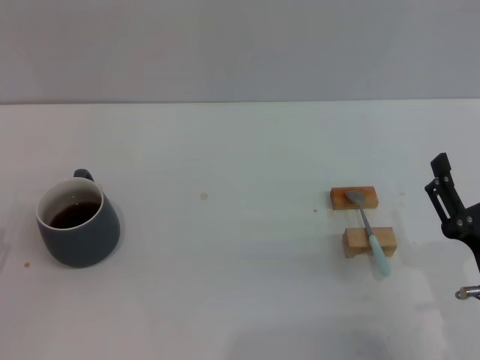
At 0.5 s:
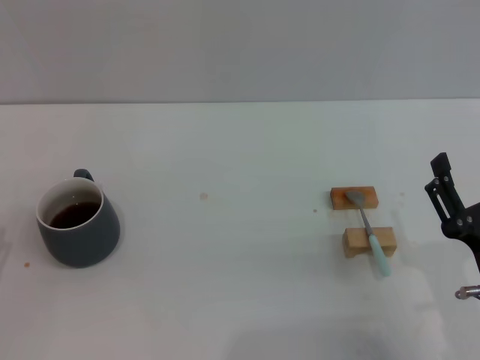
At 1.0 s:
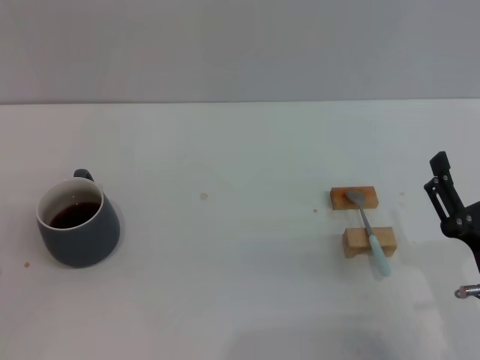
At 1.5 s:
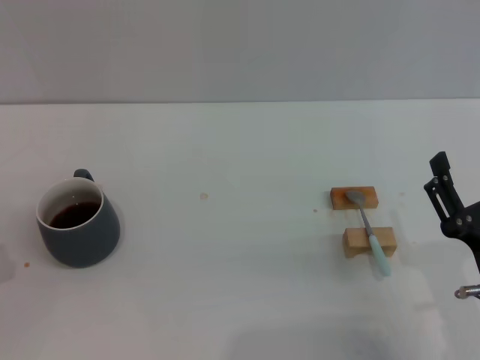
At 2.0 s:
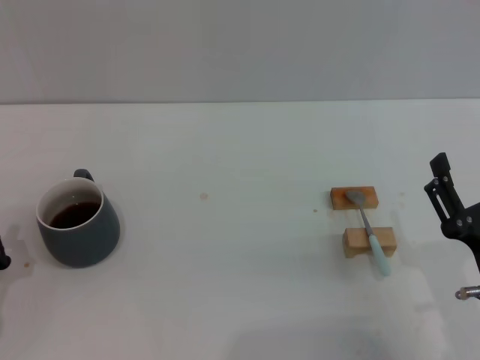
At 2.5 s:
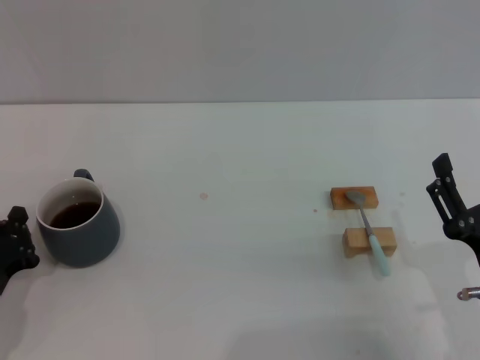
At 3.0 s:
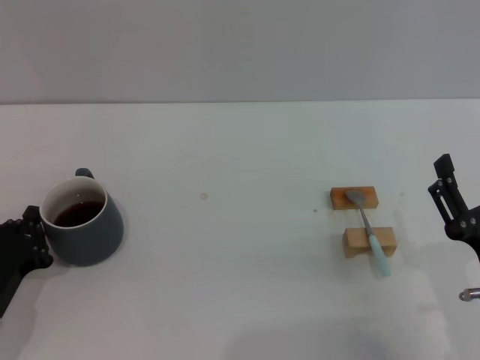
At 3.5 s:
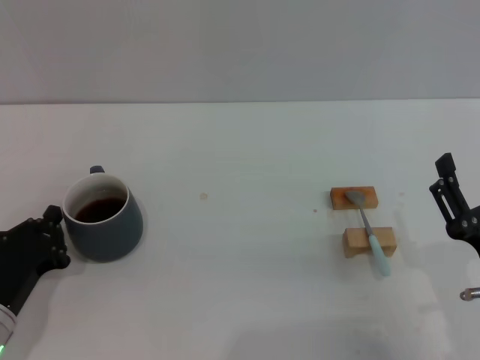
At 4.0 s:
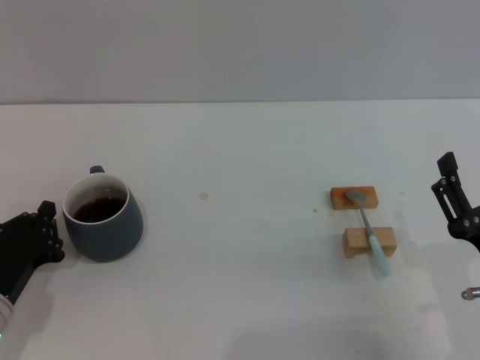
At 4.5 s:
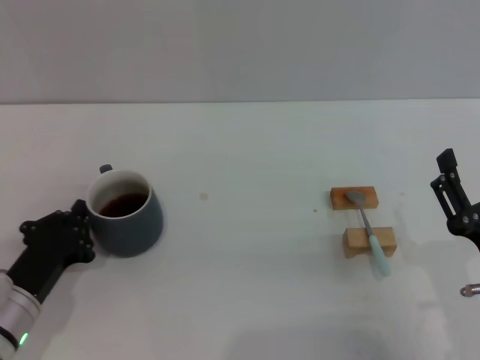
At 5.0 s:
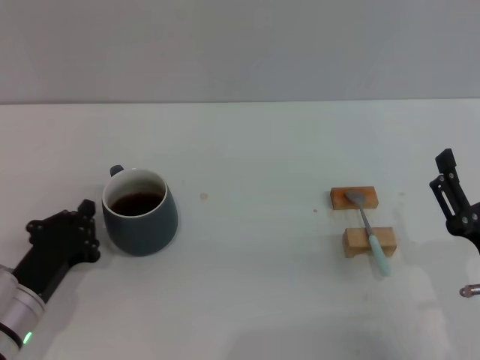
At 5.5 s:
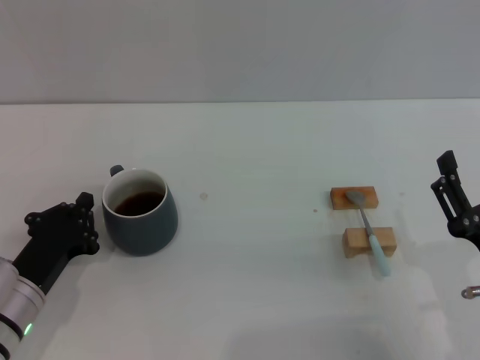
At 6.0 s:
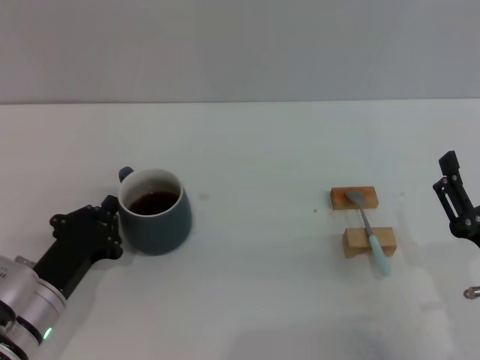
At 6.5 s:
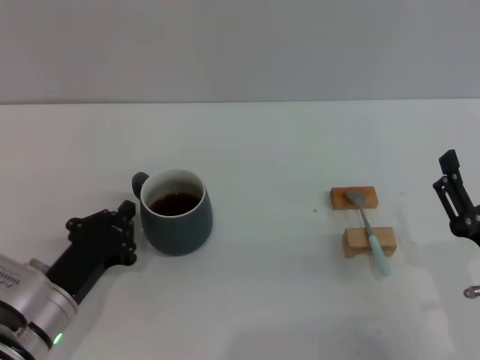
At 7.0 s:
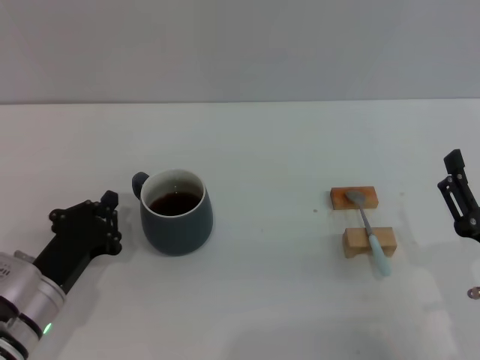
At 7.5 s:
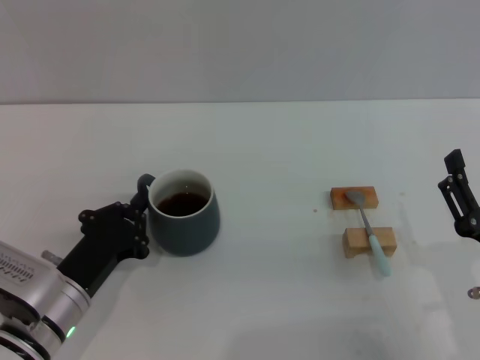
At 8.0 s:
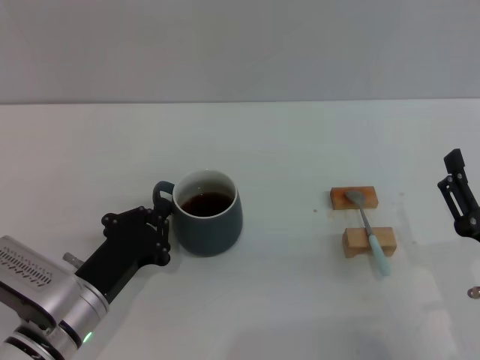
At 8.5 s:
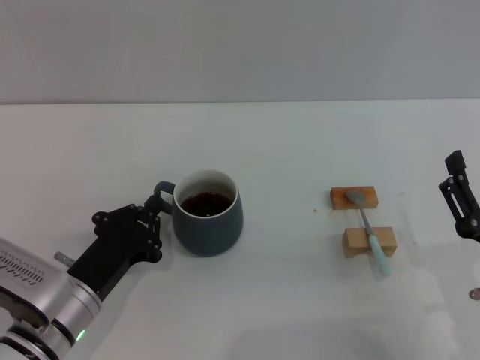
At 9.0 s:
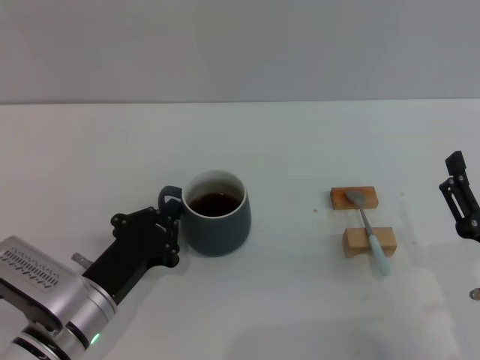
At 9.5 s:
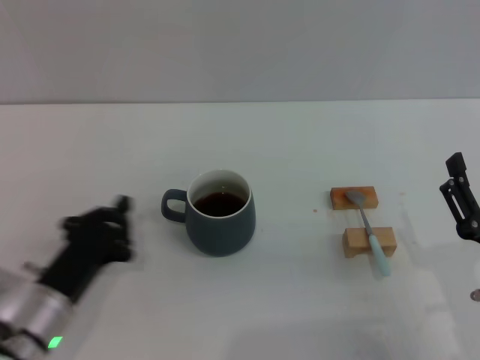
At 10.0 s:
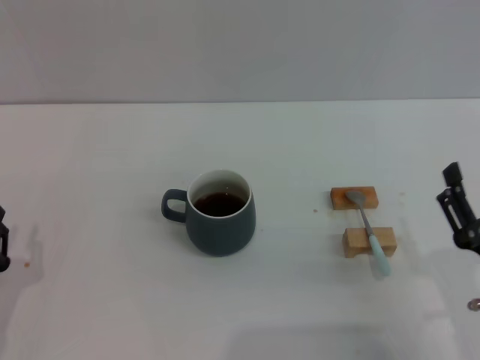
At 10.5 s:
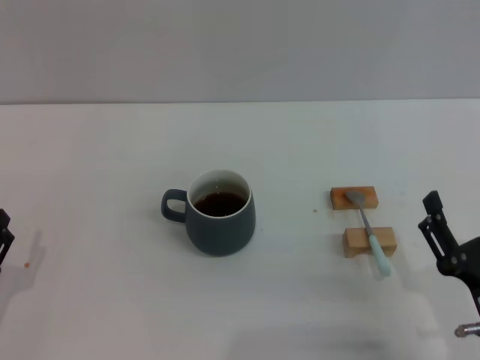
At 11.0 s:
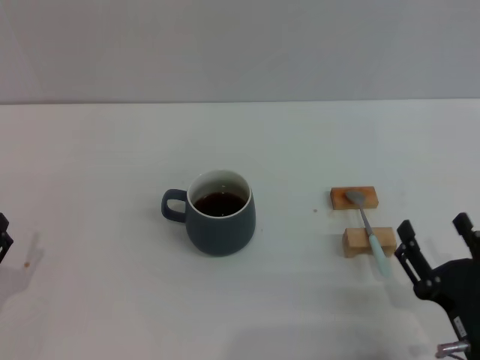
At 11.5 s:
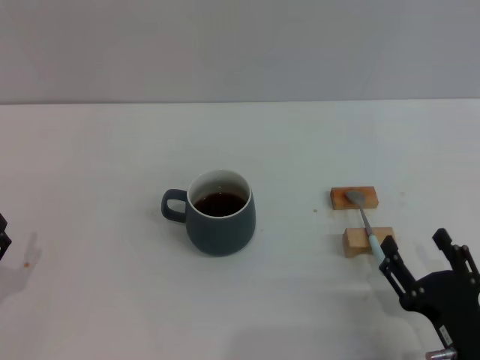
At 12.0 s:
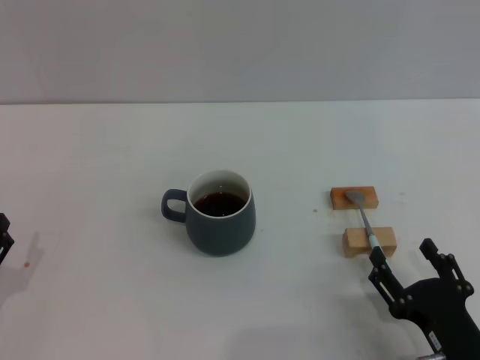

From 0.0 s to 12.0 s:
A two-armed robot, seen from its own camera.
Task of the whole recording: Move the grey cup to the center, lift the blue spoon, stir it three times in the cup, and put the spoon into the cup.
Step, from 0.0 s to 9.5 s: Move the cup with coffee to the center of view with the left gripper.
From 2.0 s to 4.0 s: The grippers make only small movements.
From 4.0 s to 6.0 s: The grippers move only a little.
From 6.0 s to 8.0 s: The grippers move only a little.
From 8.0 s to 10.0 s: The left gripper travels to the left and backward by some 10 cm.
From 10.0 s to 12.0 s: The right gripper ends up about 5 cm from where it was.

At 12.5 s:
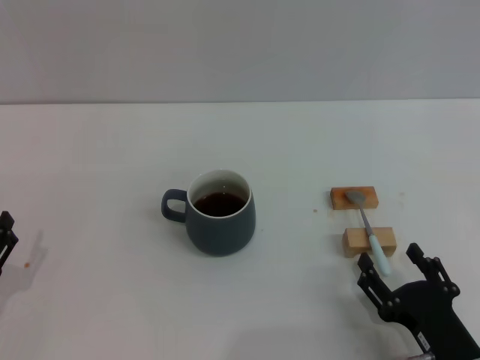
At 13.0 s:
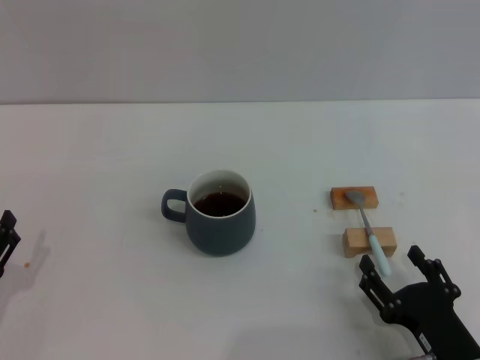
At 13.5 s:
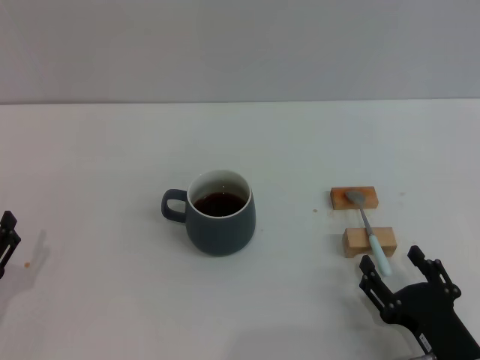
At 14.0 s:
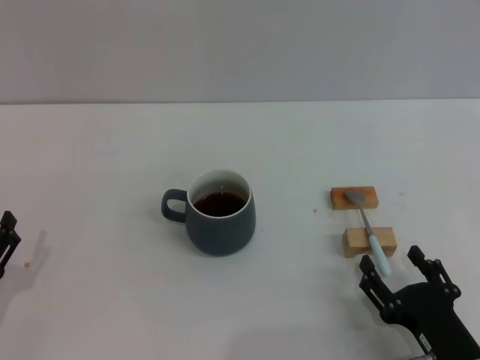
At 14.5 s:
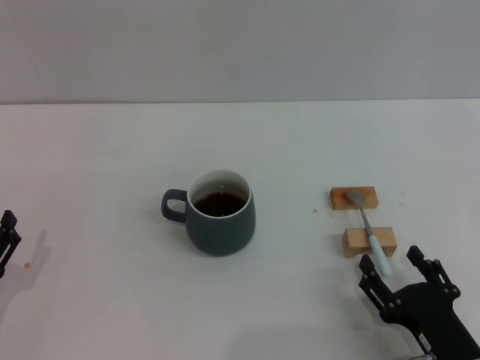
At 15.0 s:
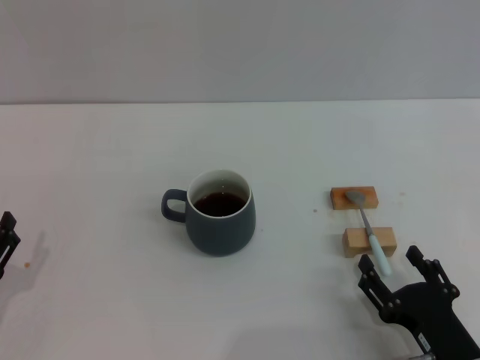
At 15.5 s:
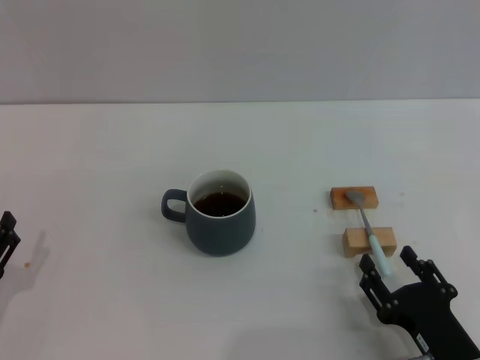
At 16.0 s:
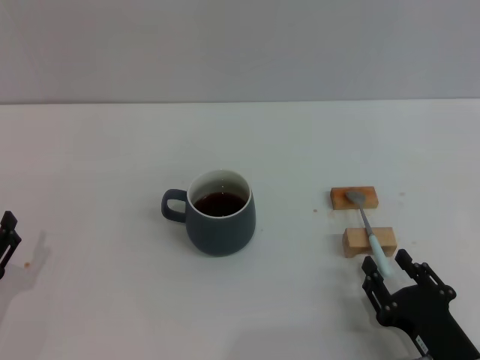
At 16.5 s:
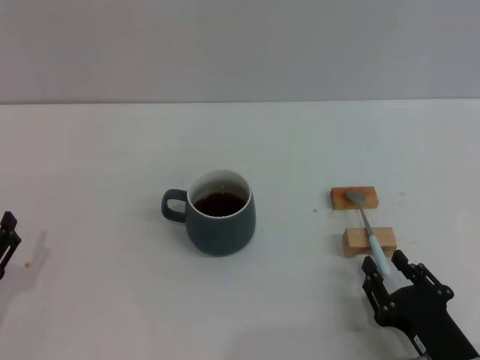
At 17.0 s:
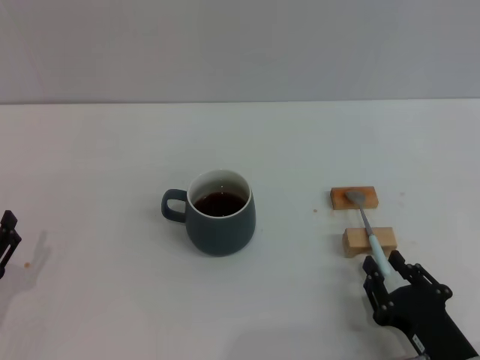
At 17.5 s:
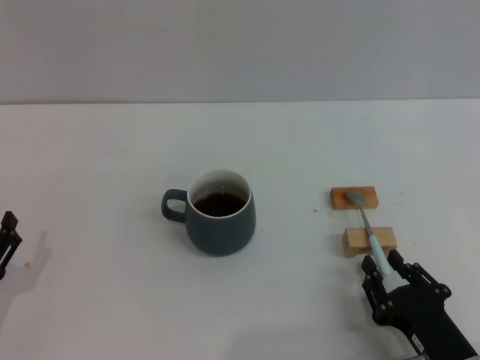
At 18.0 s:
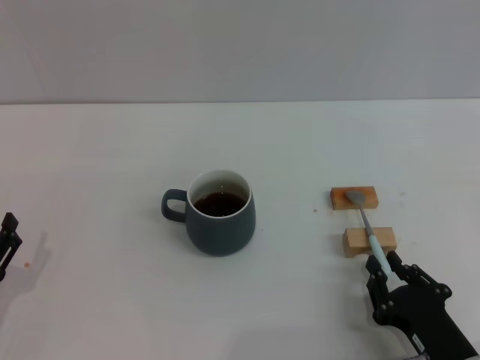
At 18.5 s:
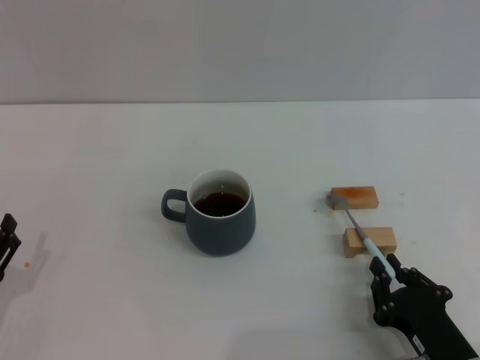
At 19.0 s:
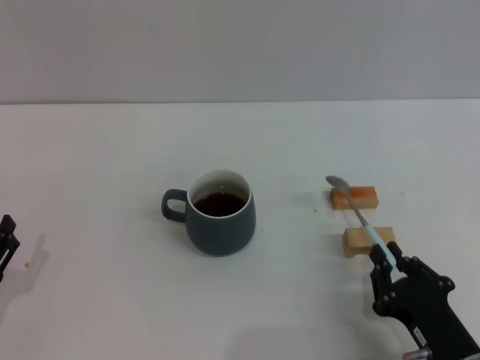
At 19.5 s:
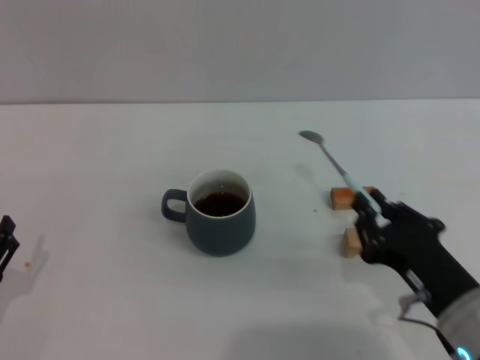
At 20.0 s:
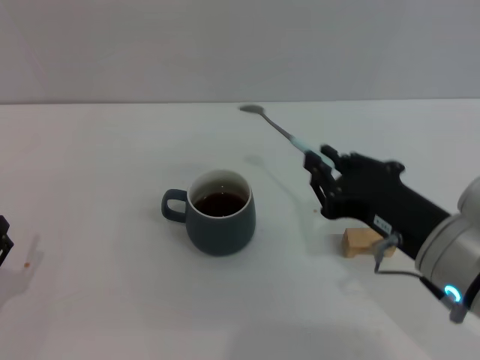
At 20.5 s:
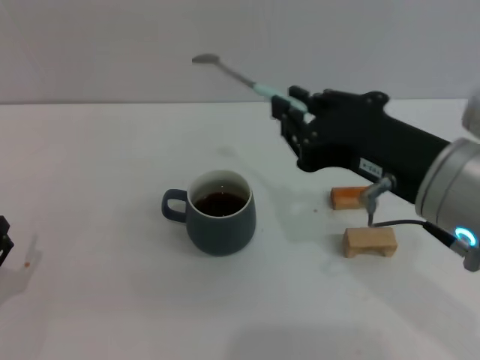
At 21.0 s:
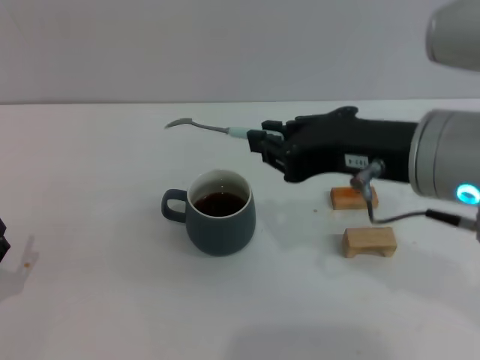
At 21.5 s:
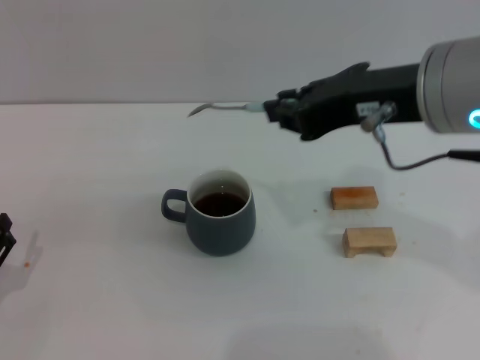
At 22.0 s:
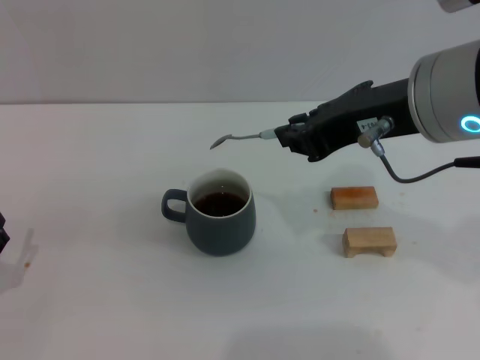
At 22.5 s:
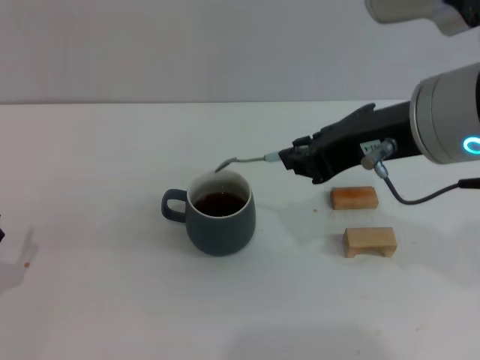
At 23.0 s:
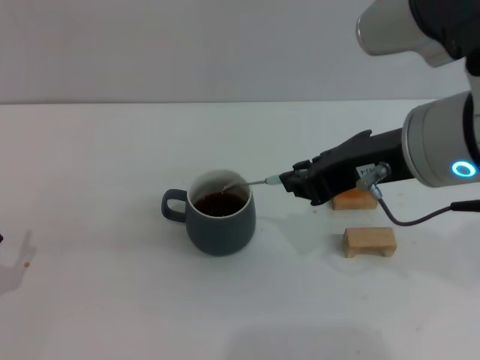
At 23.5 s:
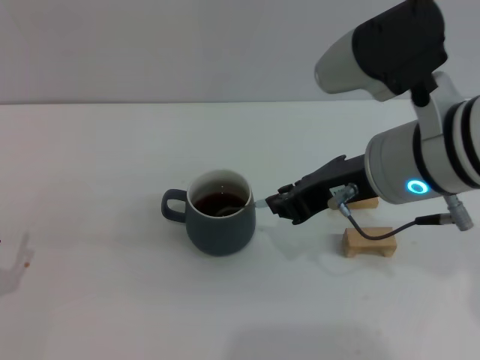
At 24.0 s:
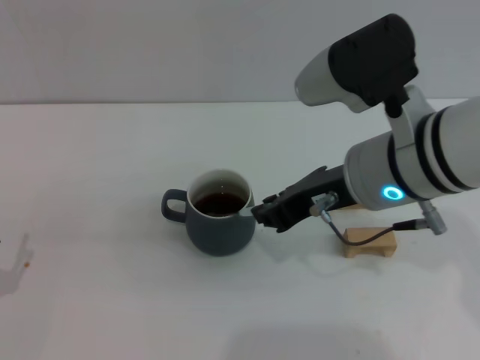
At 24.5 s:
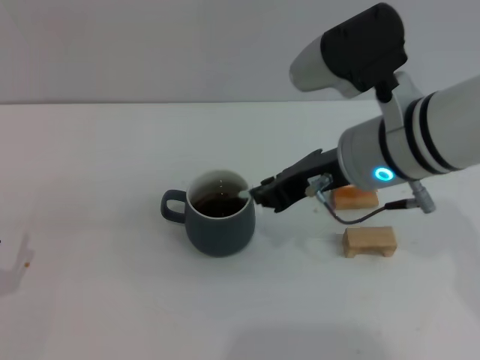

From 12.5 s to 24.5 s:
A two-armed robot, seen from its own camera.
Task of the whole recording: Move the grey cup to the center, lift the blue spoon, stir it three times in the cup, and put the spoon into the cup.
Step, from 12.5 s to 19.5 s: Pick up the spoon with the right gripper.
From 12.5 s to 14.5 s: The two grippers keep their place.
From 14.5 s to 16.5 s: The right gripper closes up.
From 16.5 s to 18.5 s: The right gripper closes its fingers.
From 18.5 s to 20.5 s: The right gripper travels upward by about 25 cm.
From 20.5 s to 22.5 s: The right gripper shifts roughly 5 cm upward.
From 22.5 s to 24.5 s: The right gripper is displaced downward and forward by about 10 cm.

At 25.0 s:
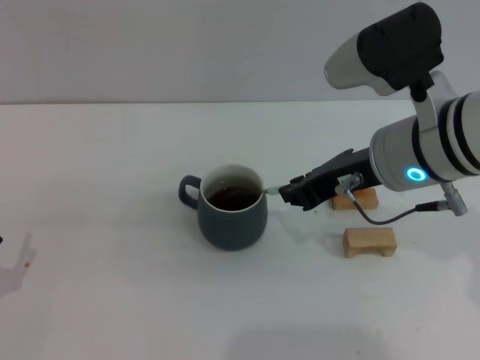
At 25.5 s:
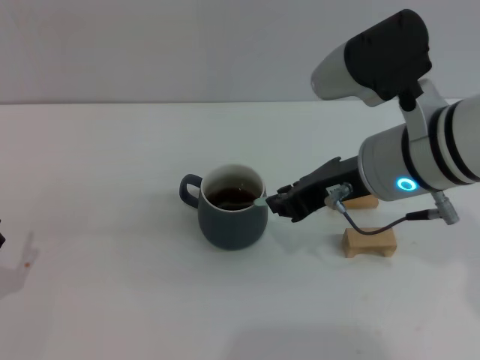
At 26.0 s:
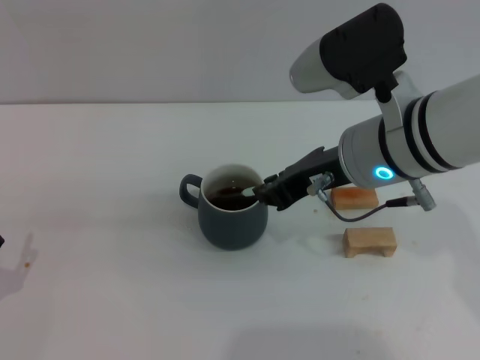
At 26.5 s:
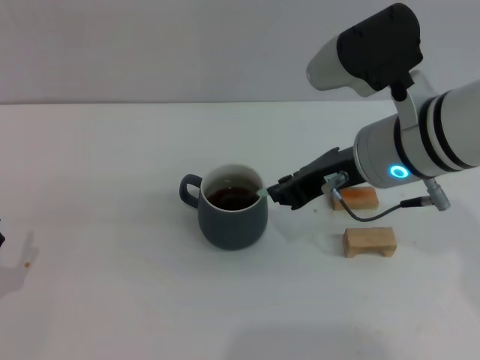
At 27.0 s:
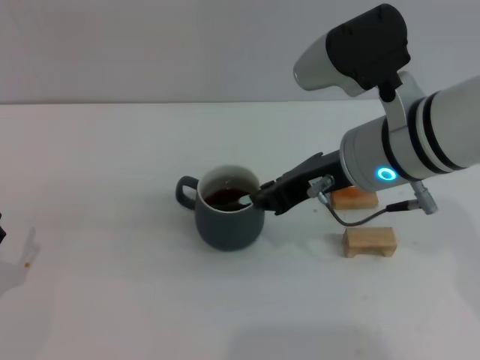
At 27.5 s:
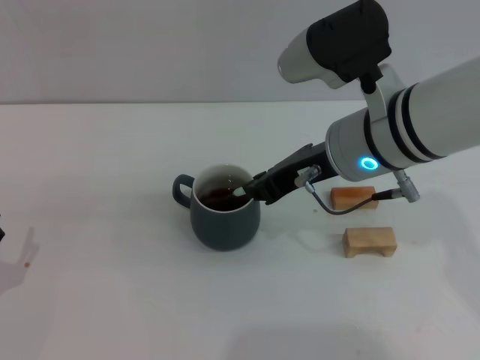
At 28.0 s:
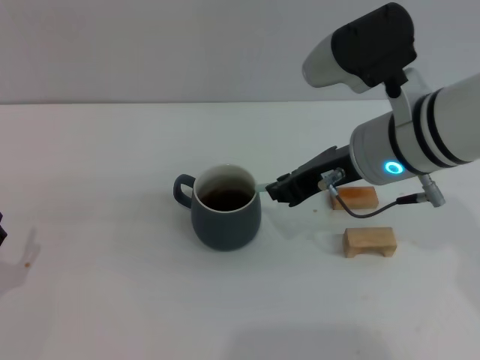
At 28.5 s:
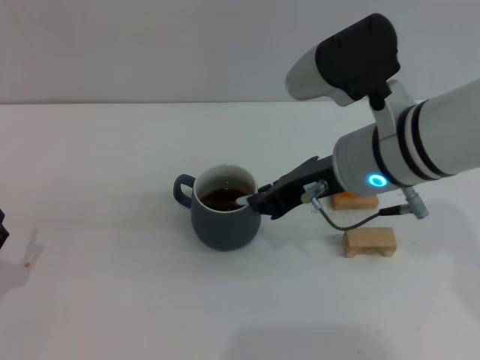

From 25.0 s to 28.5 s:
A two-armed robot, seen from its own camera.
Task of the whole recording: Move the grey cup to the center, lift the blue spoon, stir it three times in the cup, and put the spoon into the cup.
From 25.0 s to 28.5 s: The grippers move only a little.
